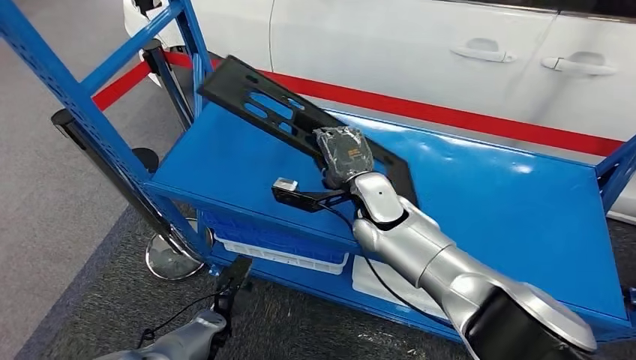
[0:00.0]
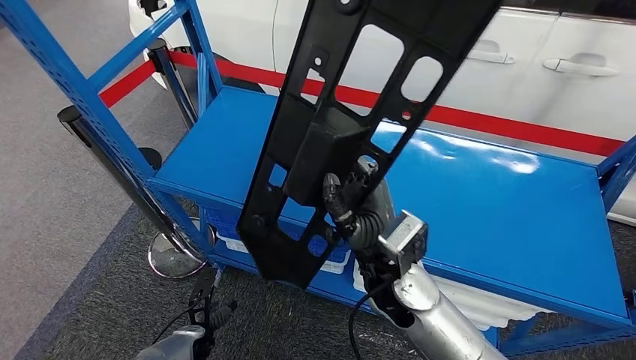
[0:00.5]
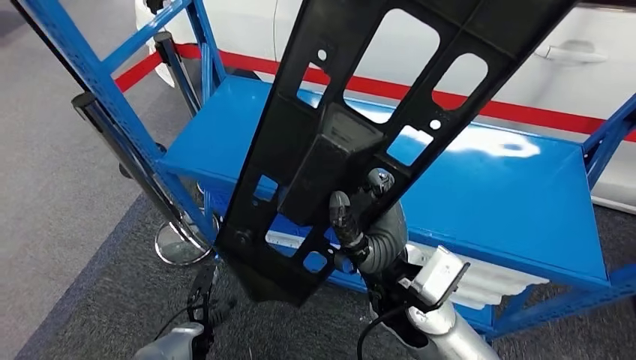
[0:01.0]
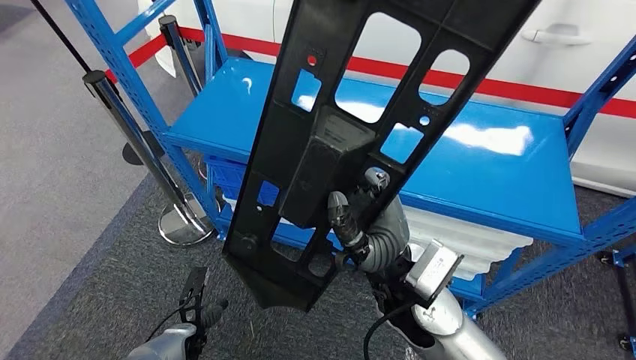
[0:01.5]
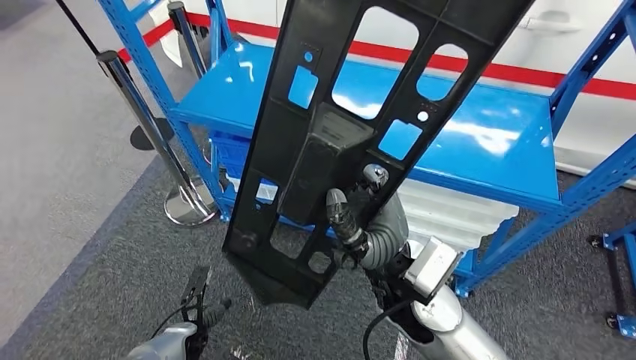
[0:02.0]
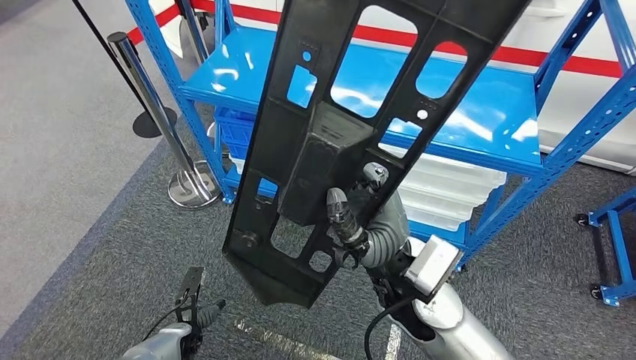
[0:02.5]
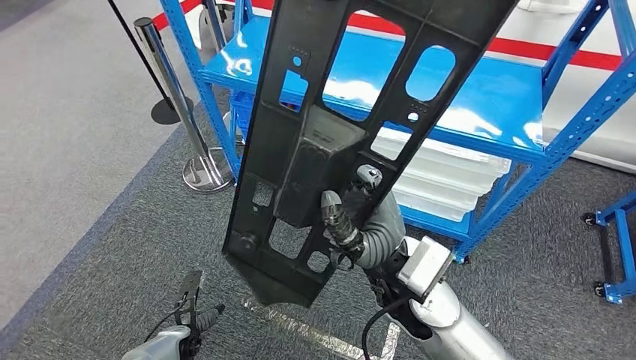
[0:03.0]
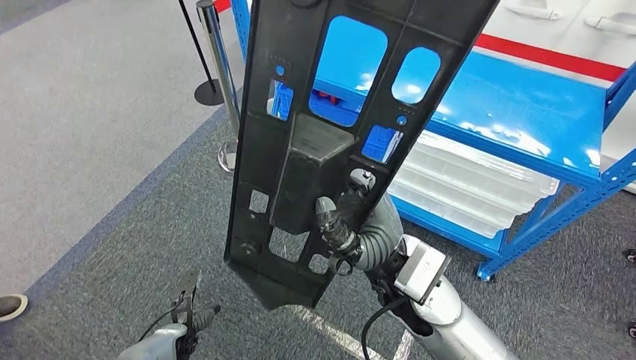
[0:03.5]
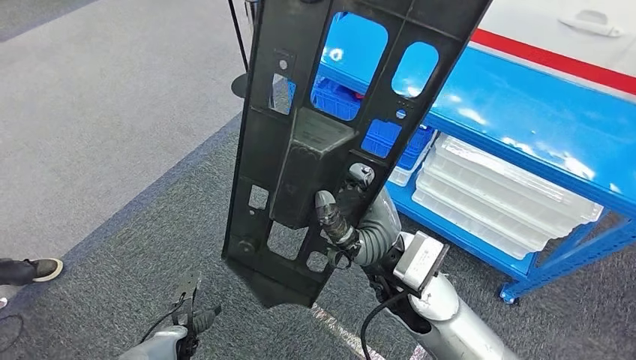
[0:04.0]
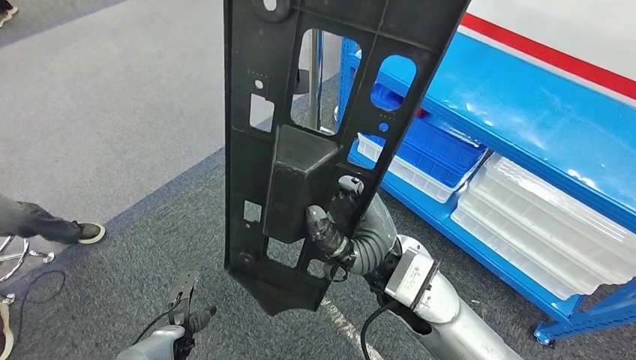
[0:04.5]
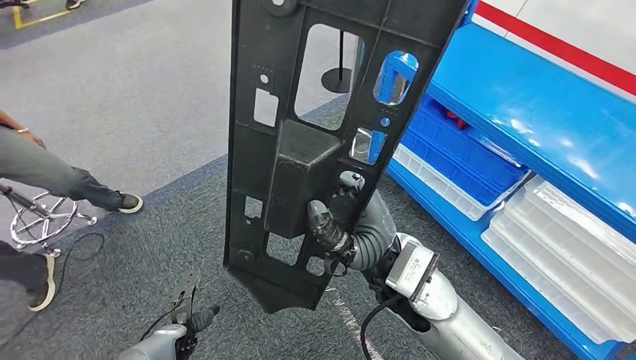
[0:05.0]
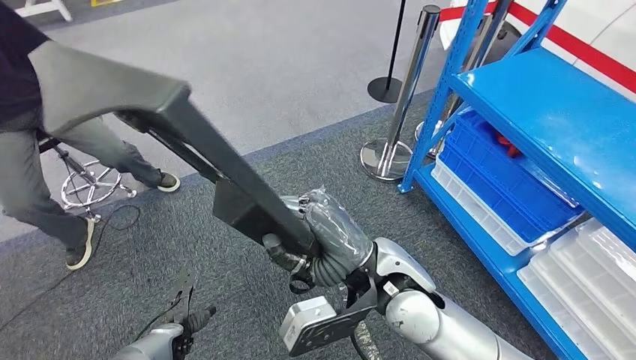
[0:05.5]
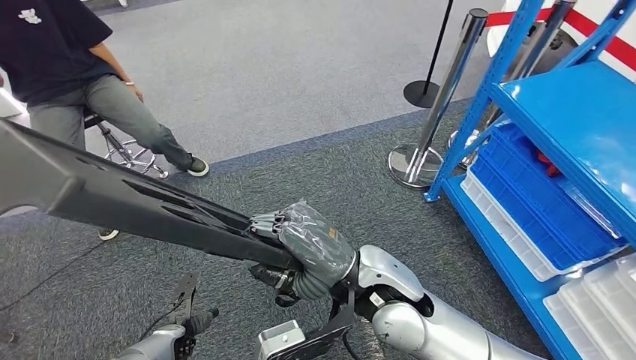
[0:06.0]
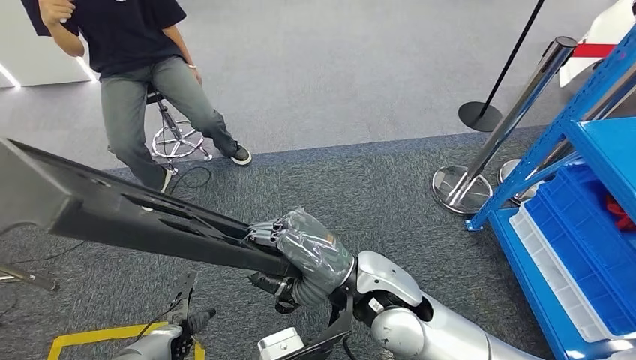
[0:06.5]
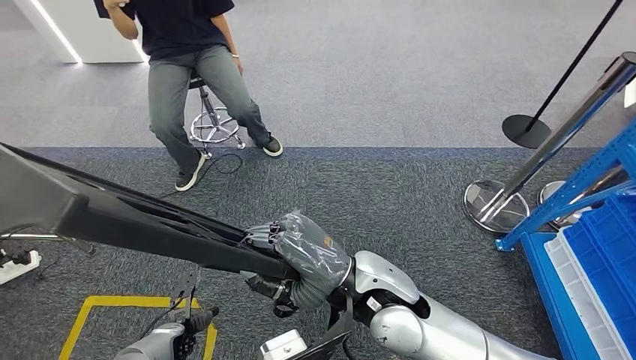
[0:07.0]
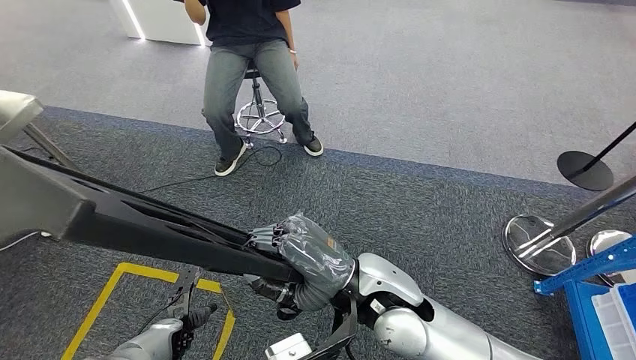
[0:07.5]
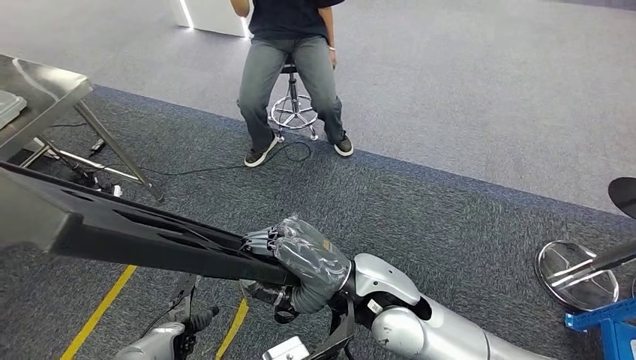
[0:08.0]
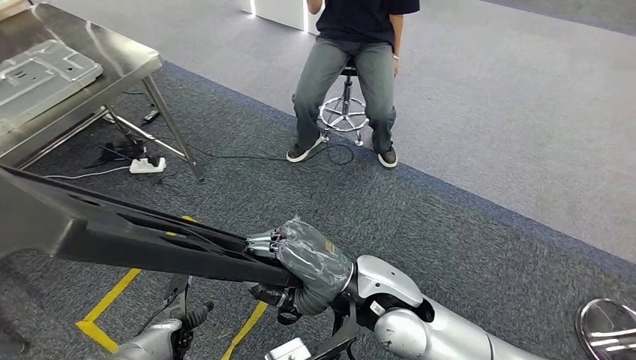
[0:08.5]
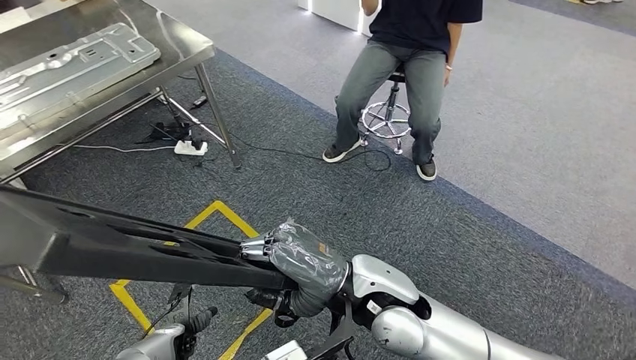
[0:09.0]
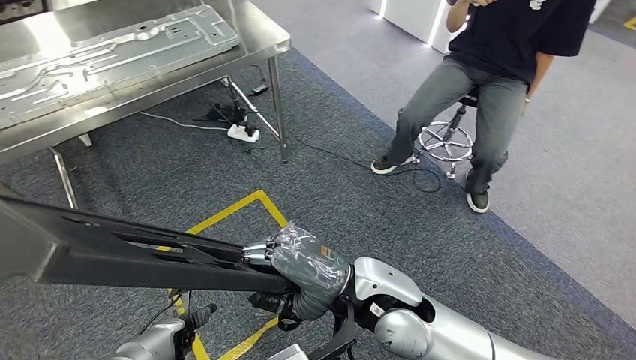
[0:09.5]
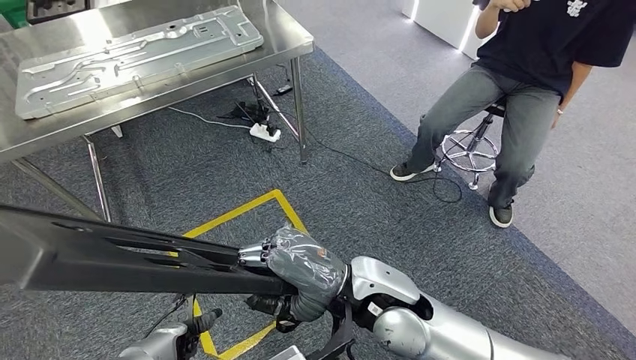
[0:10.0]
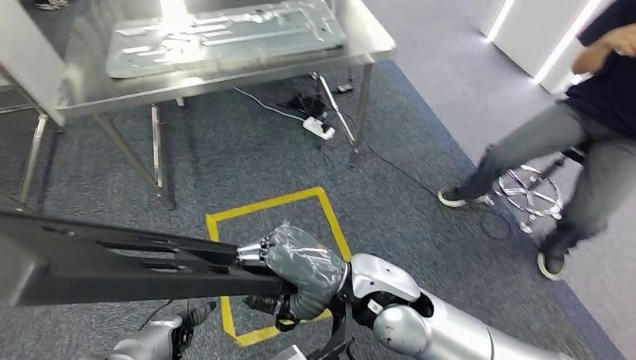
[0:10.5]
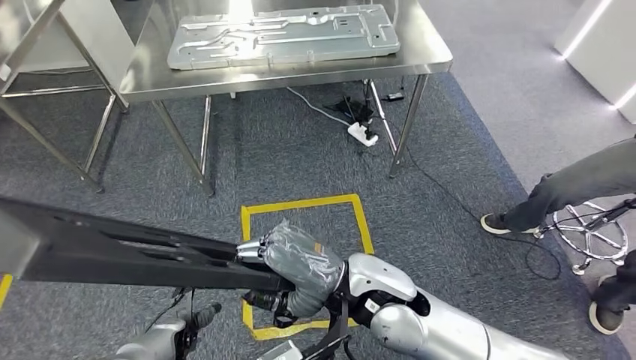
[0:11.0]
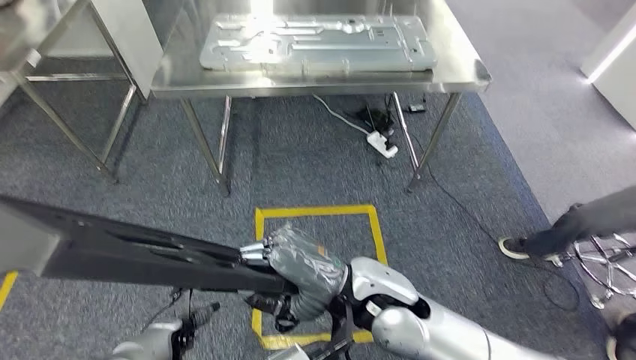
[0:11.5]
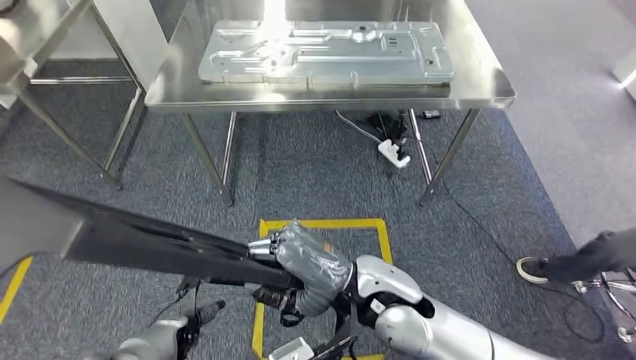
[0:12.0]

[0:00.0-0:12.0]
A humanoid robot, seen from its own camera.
Step, 0:00.5 to 0:11.0: Move the large material to the workbench.

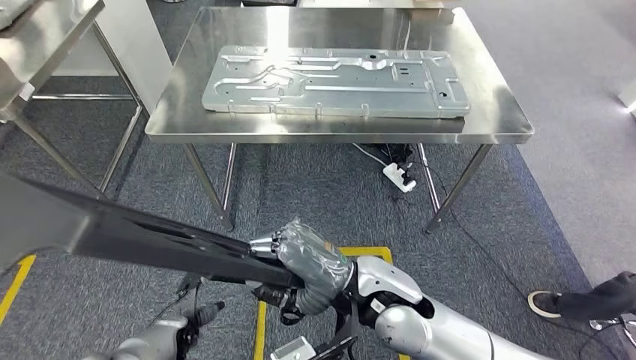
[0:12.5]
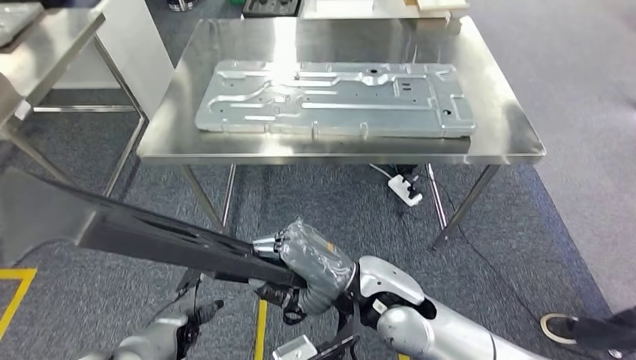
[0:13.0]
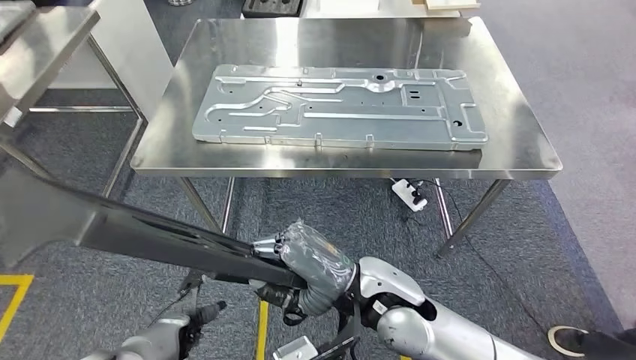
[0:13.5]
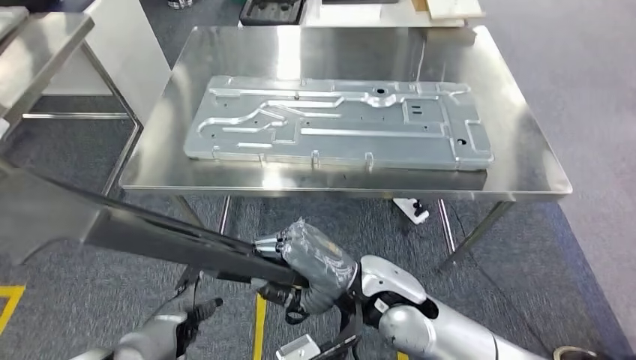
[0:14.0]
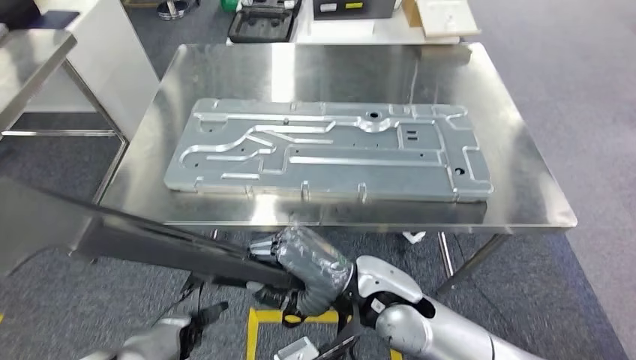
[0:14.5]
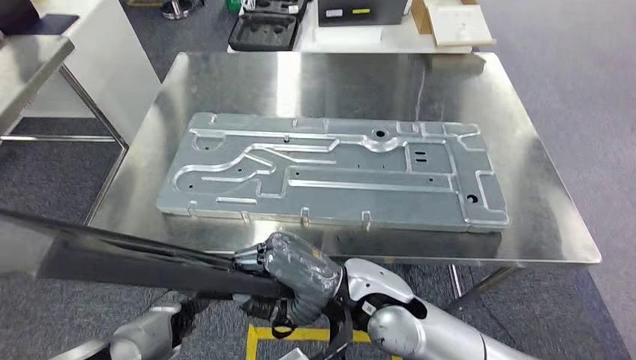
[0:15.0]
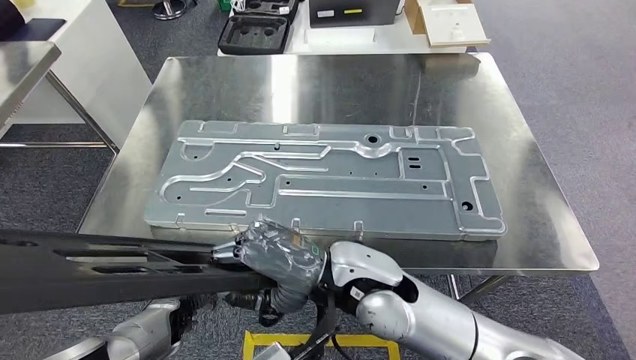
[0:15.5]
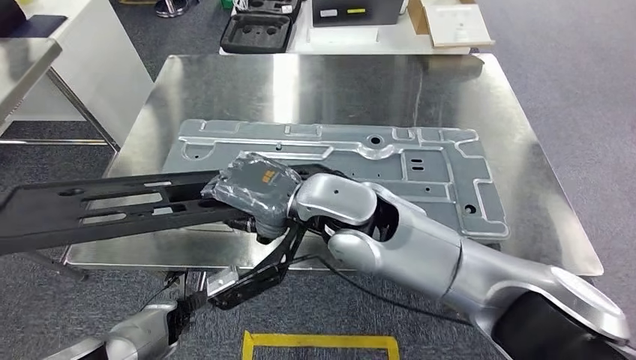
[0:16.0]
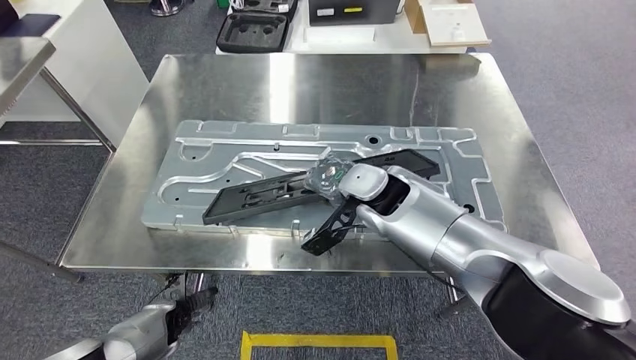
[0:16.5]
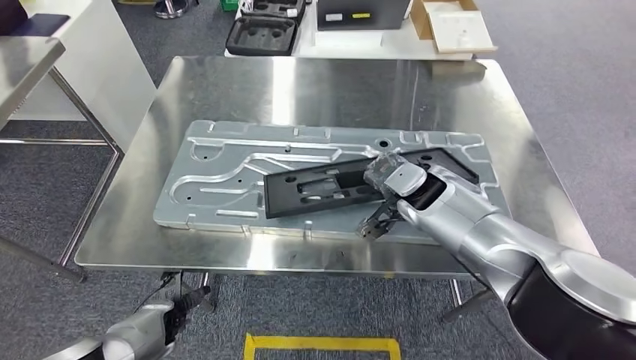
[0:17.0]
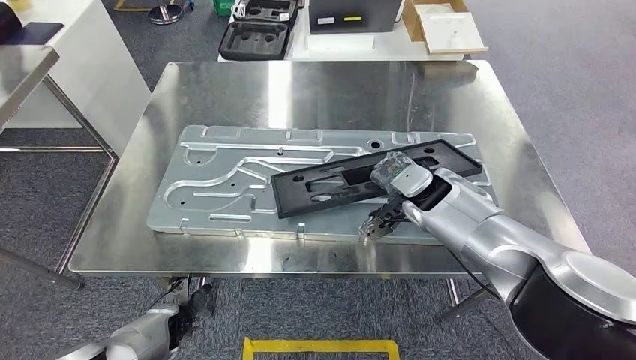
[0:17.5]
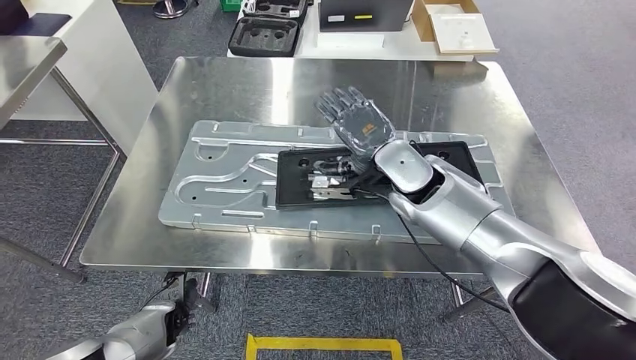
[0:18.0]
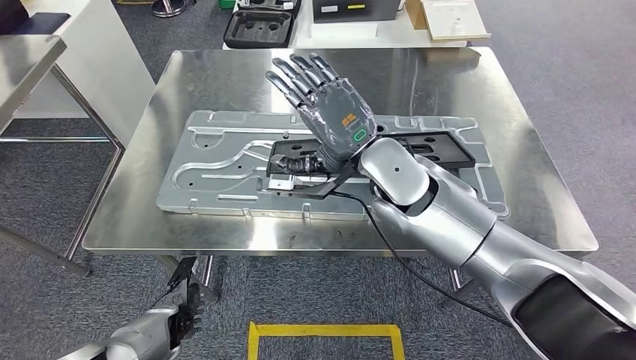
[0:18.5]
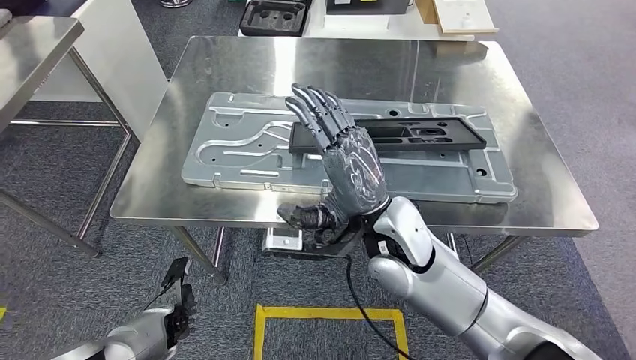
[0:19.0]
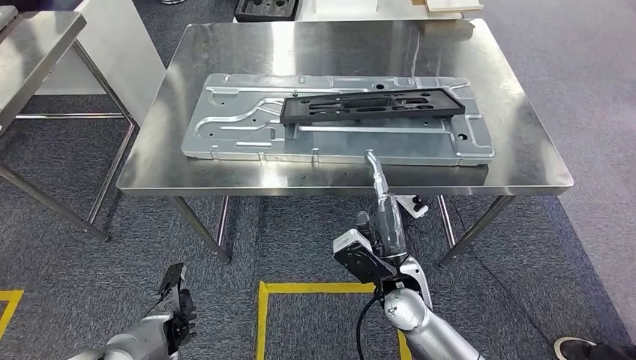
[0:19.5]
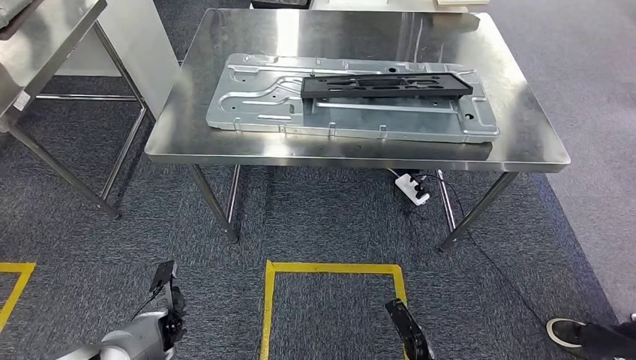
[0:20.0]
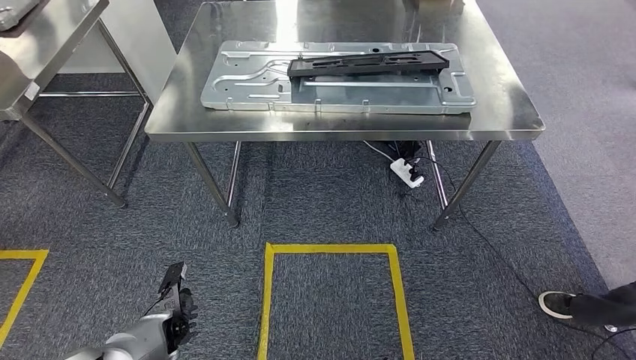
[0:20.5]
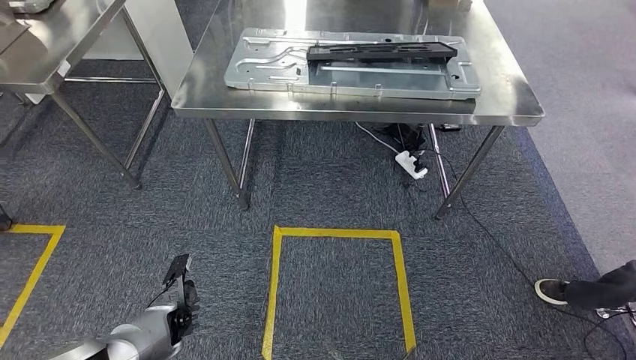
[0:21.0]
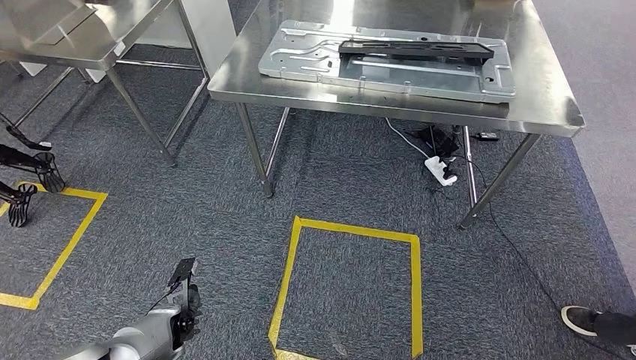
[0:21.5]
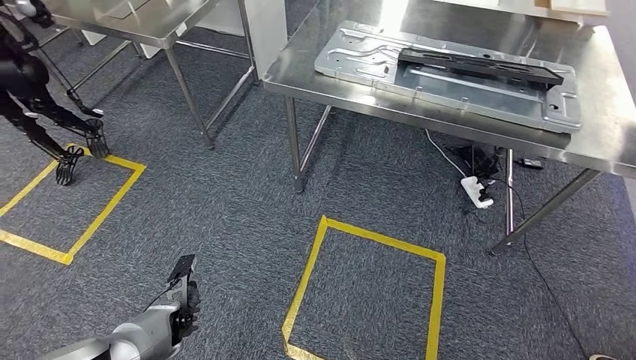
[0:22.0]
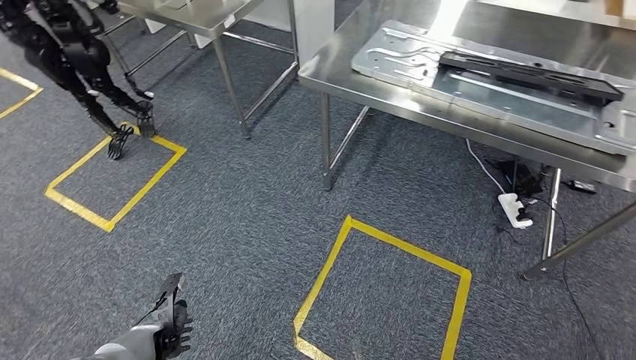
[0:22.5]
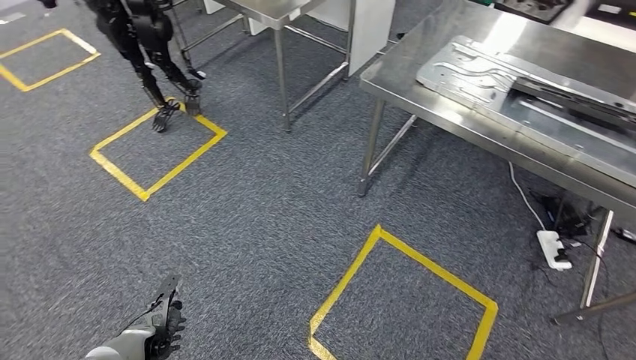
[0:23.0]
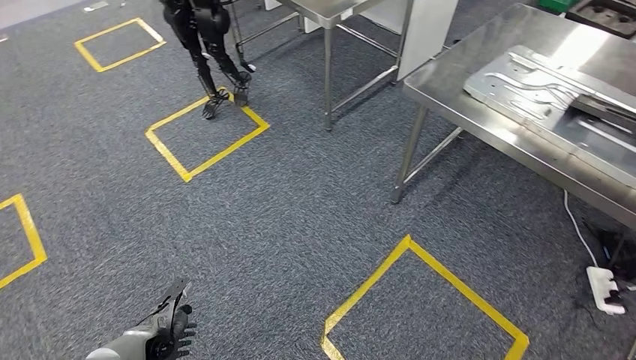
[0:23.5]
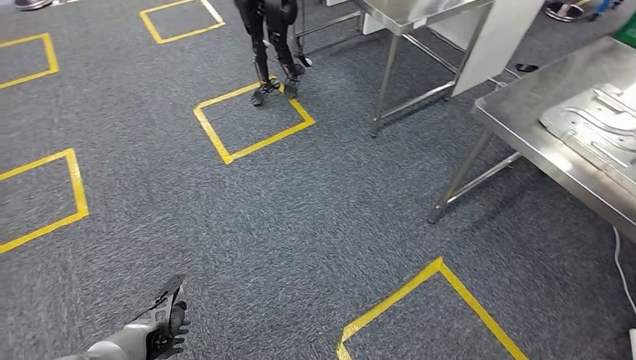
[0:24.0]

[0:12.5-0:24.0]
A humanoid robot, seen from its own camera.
Step, 0:12.5 to 0:18.5: Insert the large material into the corresponding slot on the workbench.
